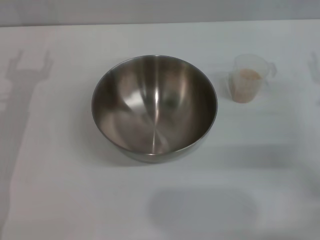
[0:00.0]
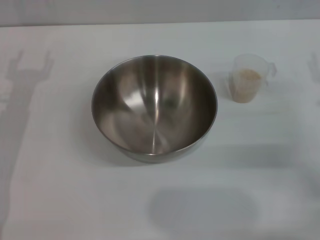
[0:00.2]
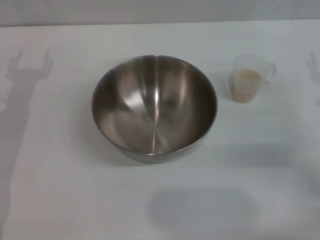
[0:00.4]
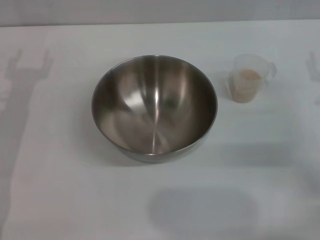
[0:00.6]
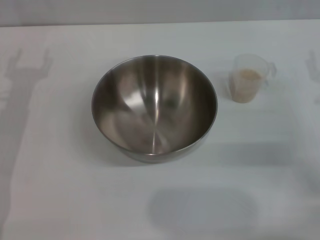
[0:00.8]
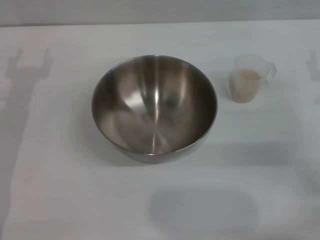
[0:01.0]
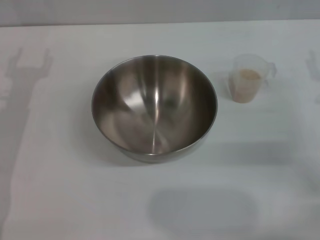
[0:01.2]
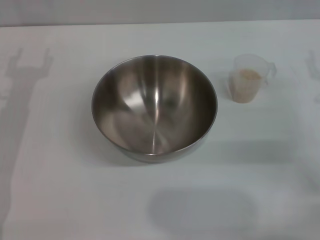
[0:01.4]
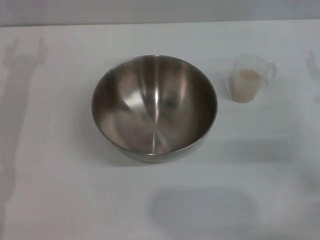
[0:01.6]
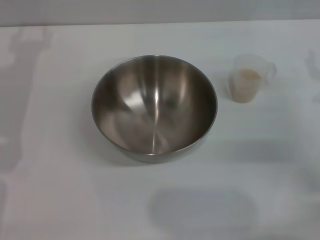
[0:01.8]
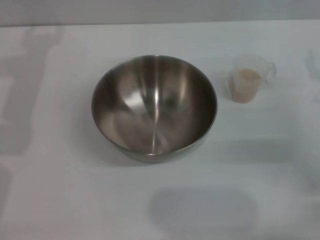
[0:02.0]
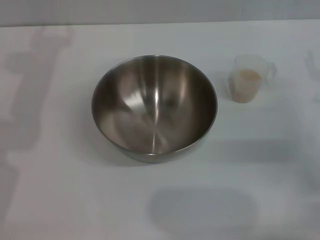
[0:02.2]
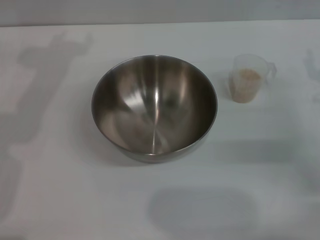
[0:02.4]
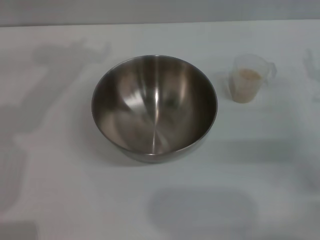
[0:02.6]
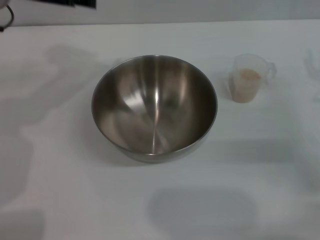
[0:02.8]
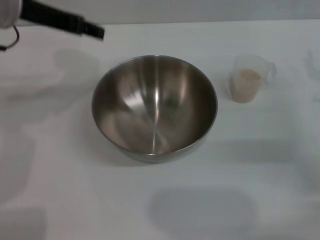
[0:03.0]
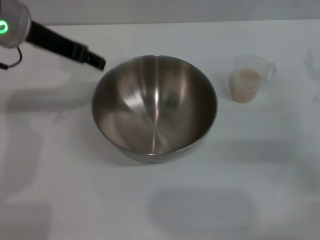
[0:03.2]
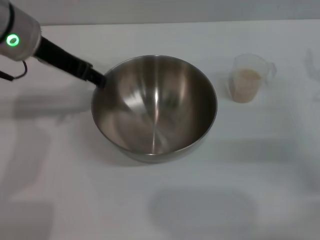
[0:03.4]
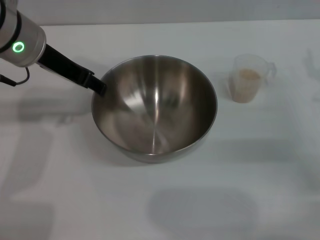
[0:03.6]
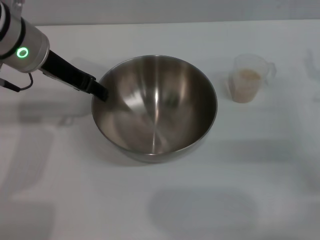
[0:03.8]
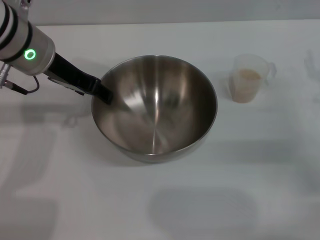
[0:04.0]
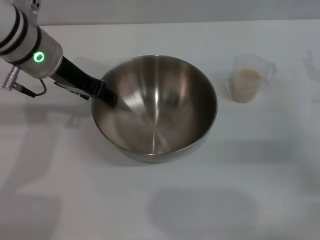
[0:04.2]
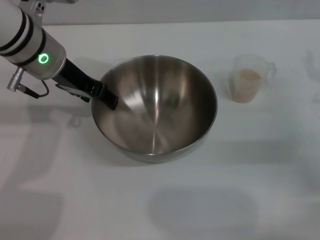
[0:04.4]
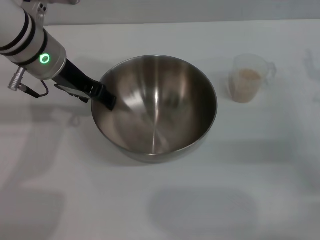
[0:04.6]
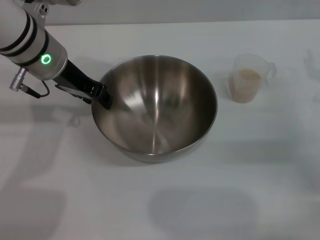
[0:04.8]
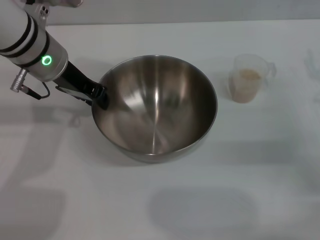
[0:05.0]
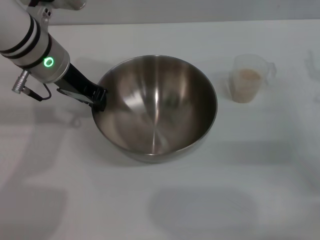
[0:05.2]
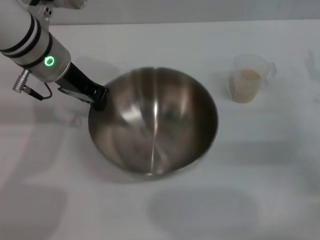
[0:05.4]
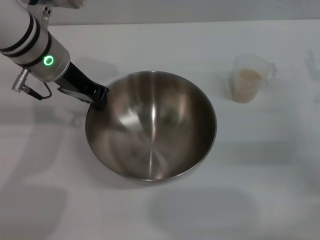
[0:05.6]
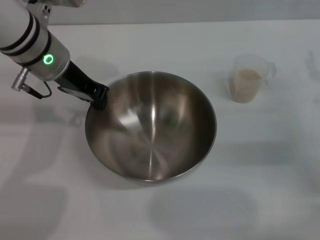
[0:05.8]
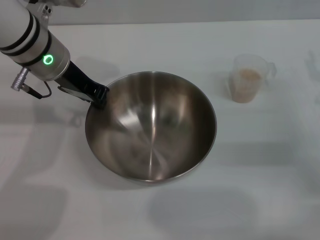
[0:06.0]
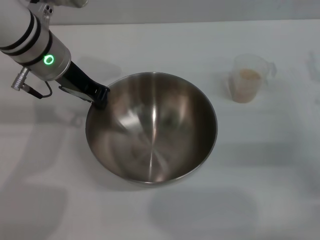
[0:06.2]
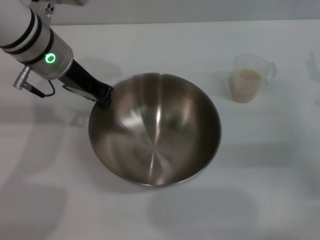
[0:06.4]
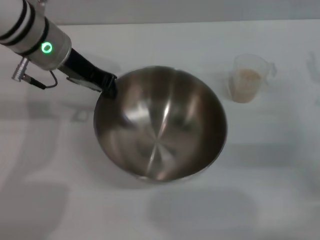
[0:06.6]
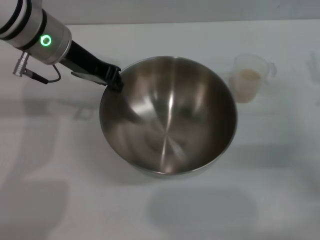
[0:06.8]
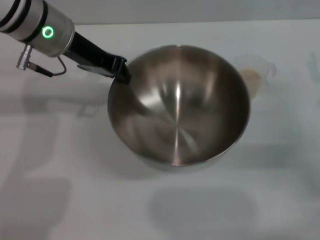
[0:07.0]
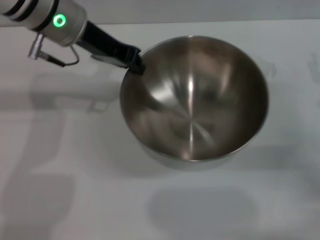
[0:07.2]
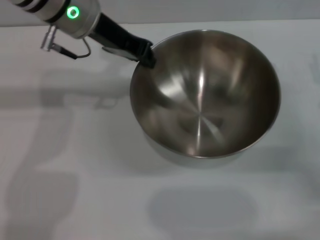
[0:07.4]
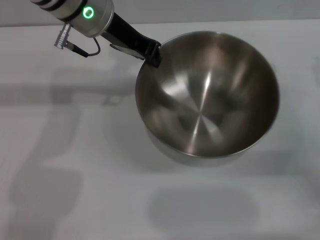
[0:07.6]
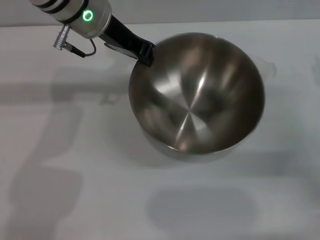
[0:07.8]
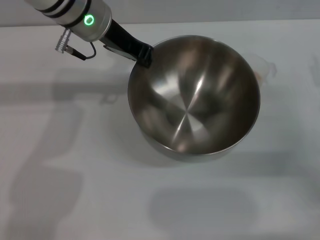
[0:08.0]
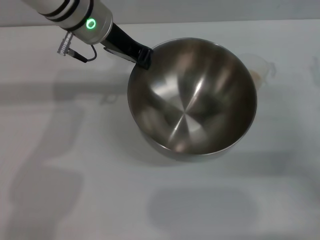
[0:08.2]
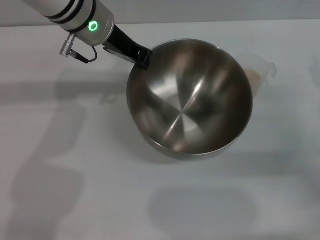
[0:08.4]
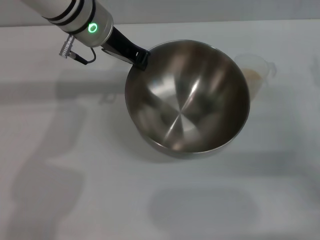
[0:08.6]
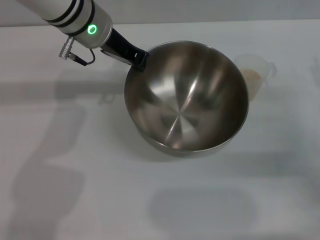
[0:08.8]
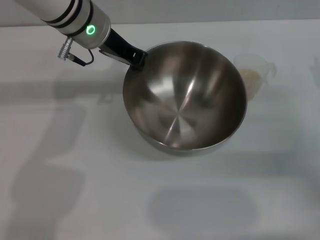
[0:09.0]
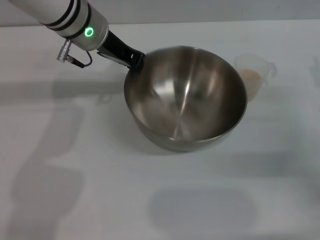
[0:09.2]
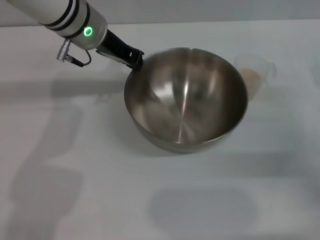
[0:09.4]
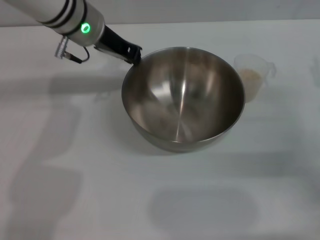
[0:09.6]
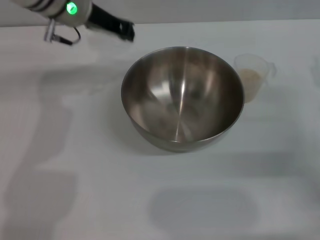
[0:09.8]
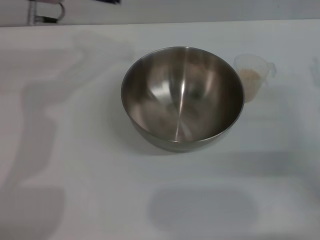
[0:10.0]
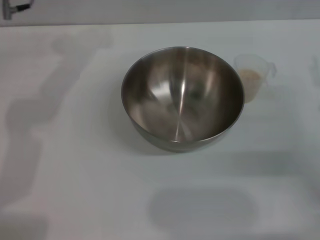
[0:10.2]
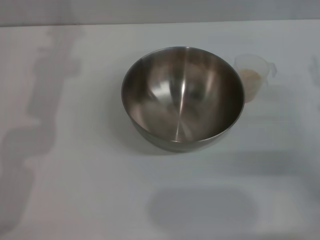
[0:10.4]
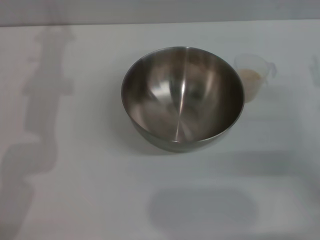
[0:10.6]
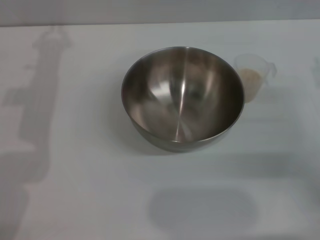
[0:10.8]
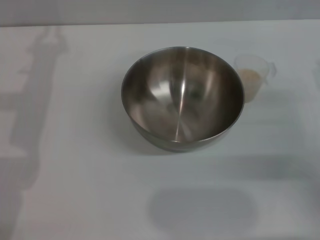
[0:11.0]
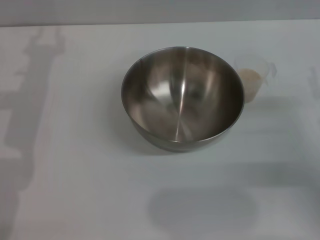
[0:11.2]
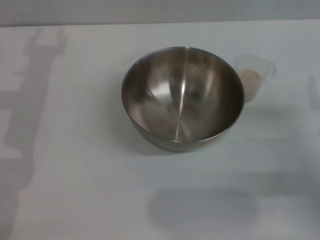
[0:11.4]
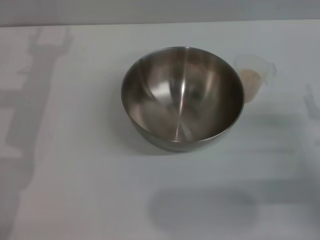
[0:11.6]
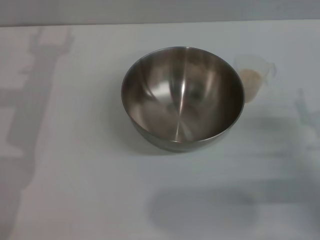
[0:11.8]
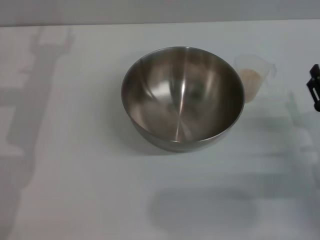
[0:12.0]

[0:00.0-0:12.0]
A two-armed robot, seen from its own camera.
Task of the whole recording: Place the bowl in the middle of the table with one hand and pour the rice from the grain cup into it with the other hand.
Step, 0:00.0 to 0:06.8: Pick up the bowl with the left gripper.
Step, 0:07.0 to 0:09.6: Place the bowl in the center of view with the left gripper.
0:01.6 to 0:03.0: The left gripper moves upward and to the right, approximately 15 cm.
0:03.0 to 0:04.4: The left gripper is displaced downward by about 5 cm.
0:04.4 to 0:06.0: The left gripper closes up.
0:06.0 to 0:07.6: The left gripper travels to the right by approximately 5 cm.
0:09.0 to 0:10.4: The left gripper goes about 10 cm to the left.
0:10.4 to 0:12.0: The right gripper heads downward and backward, covering approximately 10 cm.

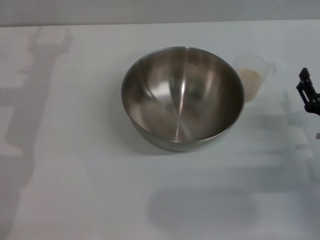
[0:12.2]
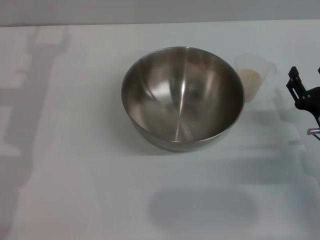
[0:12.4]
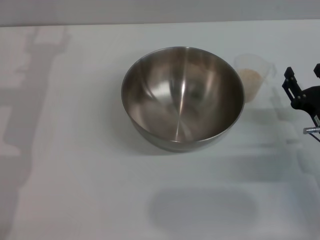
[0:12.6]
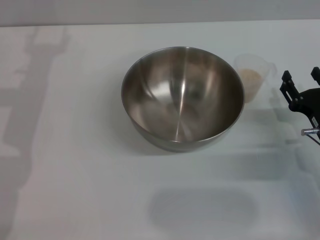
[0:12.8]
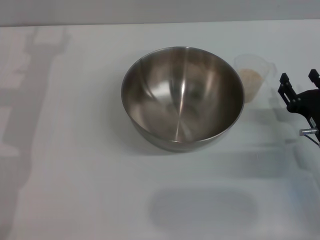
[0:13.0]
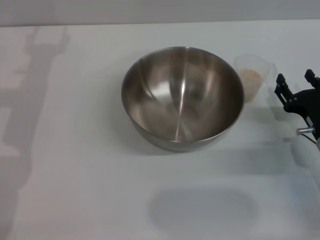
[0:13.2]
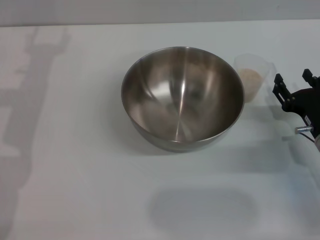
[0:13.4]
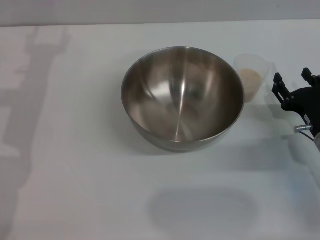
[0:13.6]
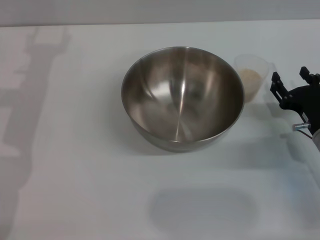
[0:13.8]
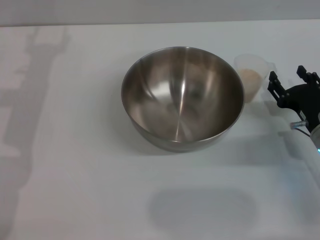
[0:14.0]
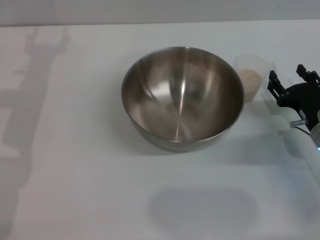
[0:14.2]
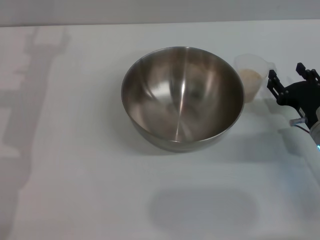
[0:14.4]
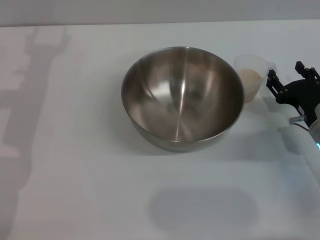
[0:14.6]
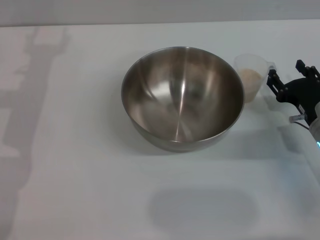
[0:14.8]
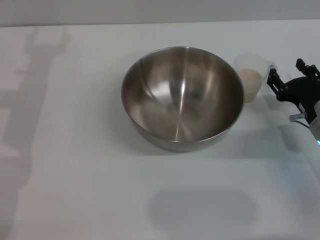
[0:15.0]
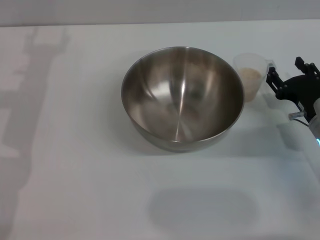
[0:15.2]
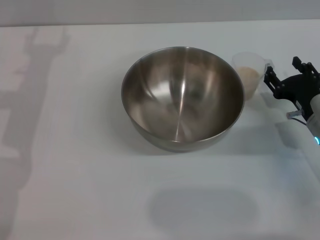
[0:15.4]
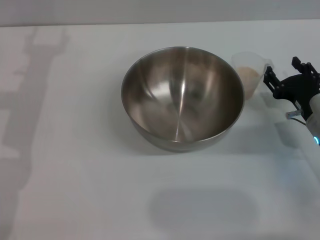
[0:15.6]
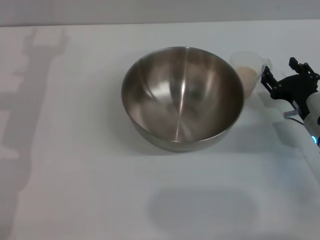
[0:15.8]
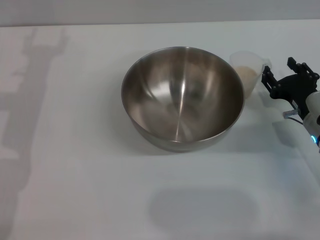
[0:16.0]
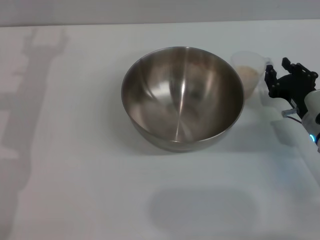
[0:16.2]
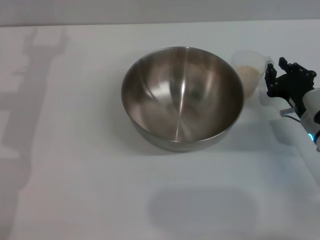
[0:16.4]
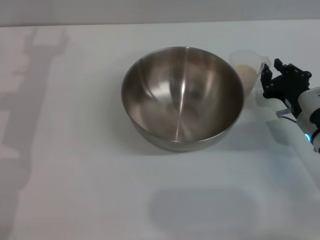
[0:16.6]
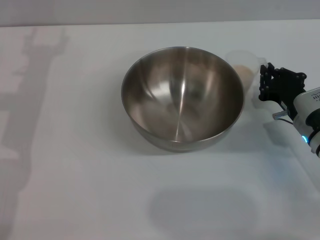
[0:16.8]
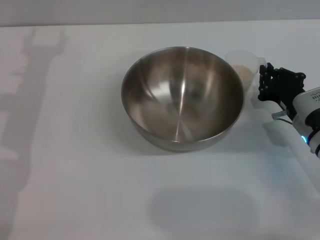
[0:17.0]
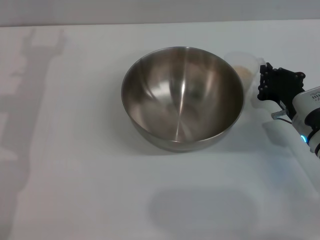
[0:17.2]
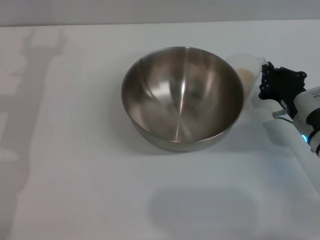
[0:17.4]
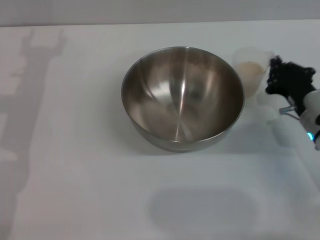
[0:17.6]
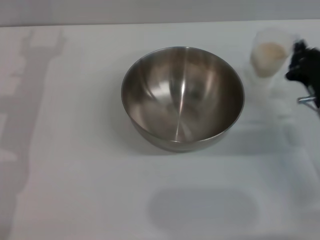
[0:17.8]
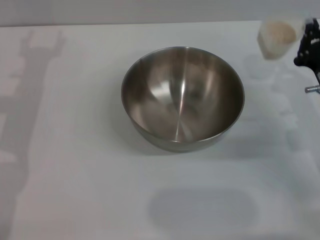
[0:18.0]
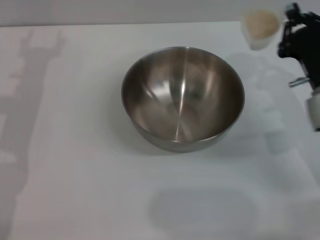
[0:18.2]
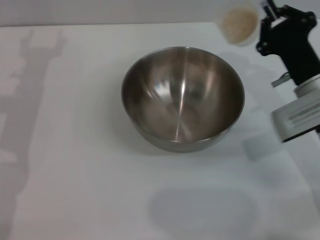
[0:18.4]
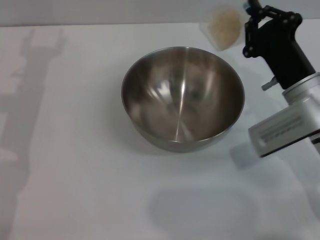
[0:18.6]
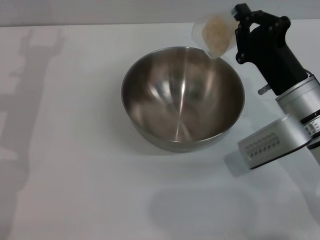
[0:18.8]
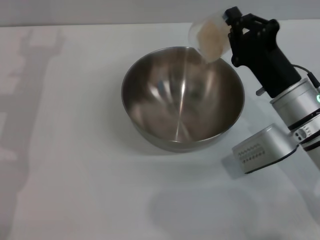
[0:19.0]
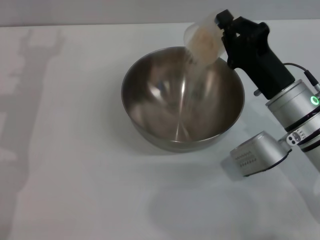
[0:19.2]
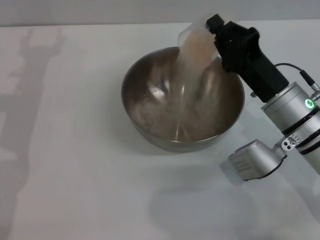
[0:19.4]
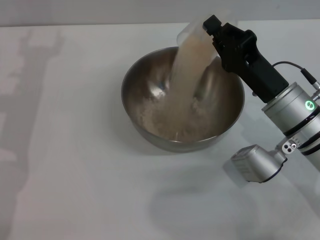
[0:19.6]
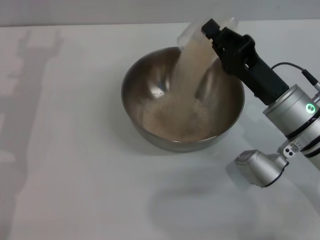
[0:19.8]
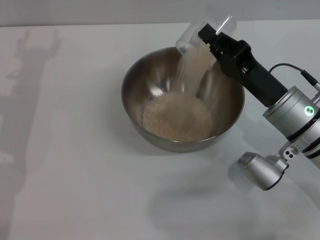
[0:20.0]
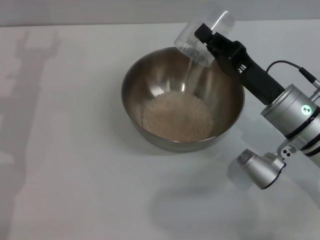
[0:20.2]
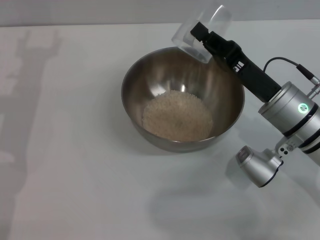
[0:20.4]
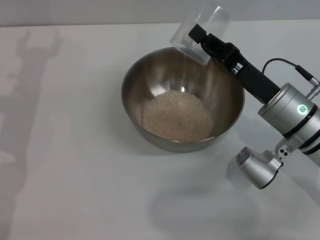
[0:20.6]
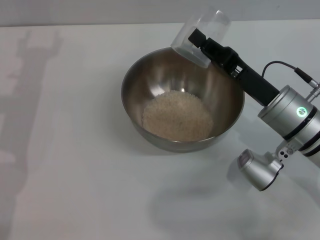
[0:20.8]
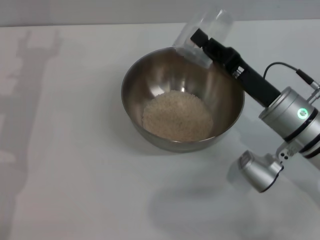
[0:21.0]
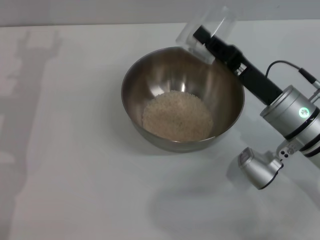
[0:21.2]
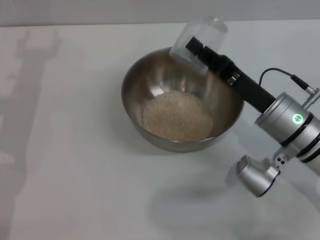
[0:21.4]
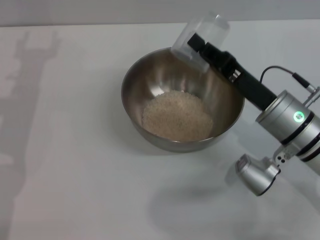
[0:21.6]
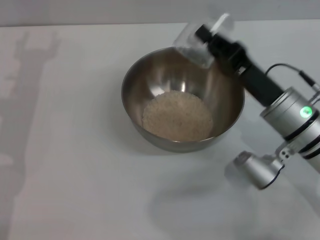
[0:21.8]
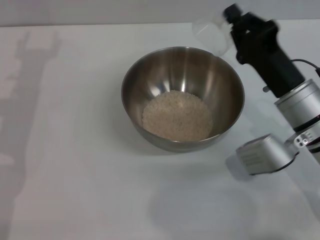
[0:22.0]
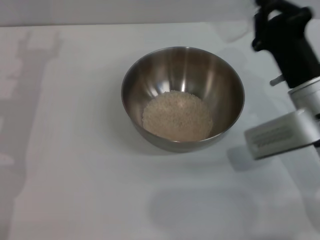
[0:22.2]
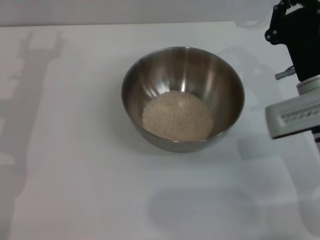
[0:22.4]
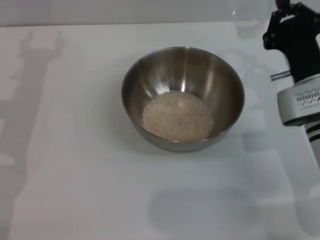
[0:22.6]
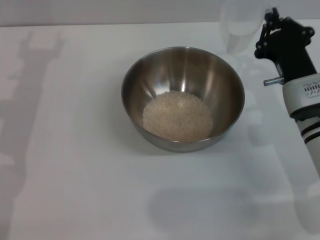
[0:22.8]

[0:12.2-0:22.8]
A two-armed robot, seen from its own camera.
Task of the whole recording: Place the bowl in the middle of the table with one hand and pour the rice from the grain cup into it with the other hand.
Step, 0:12.2 to 0:17.6: Pick up the cup with rice in it with the right gripper.
Step, 0:17.8 to 0:21.6: Pour the rice from the cup into the bowl with the right gripper.
0:12.2 to 0:15.2: The grippers stay close to where they were, moving slightly.
0:15.2 to 0:16.8: The right gripper closes up.
0:16.8 to 0:18.2: The right gripper shifts approximately 5 cm upward.
0:18.2 to 0:19.8: The right gripper moves to the left, about 5 cm.
0:19.8 to 0:21.2: The grippers make only small movements.
